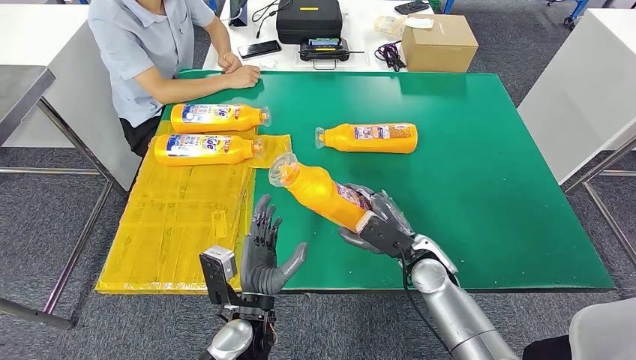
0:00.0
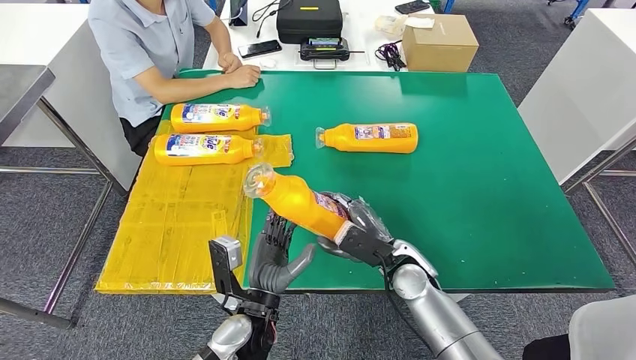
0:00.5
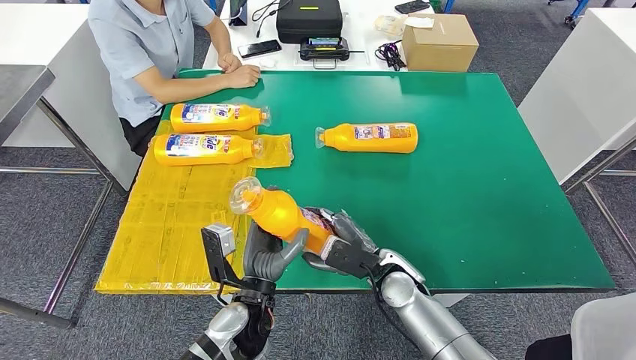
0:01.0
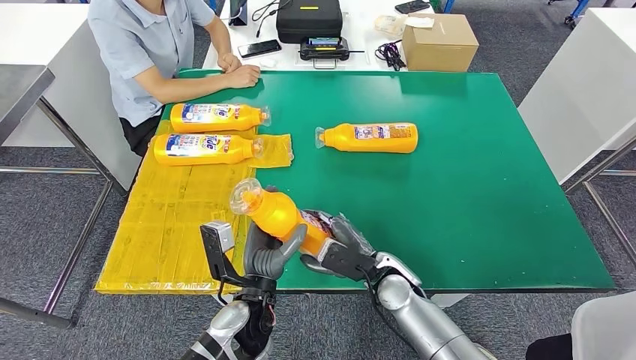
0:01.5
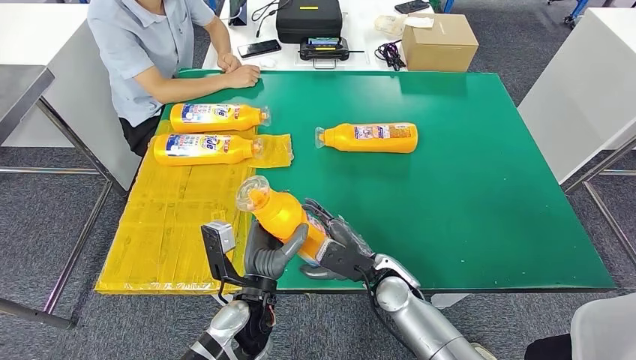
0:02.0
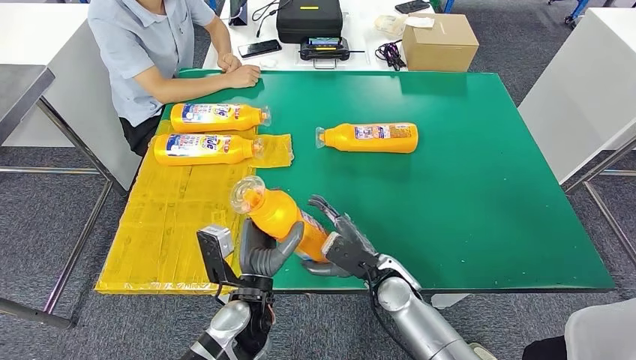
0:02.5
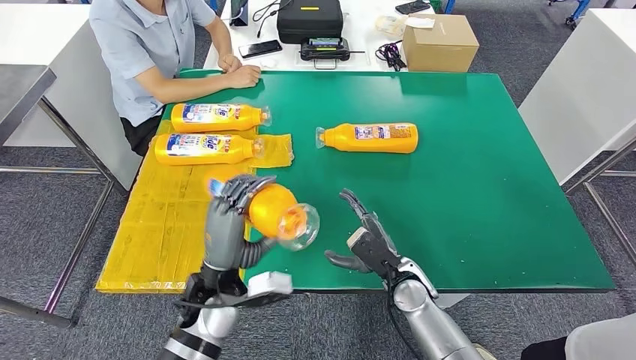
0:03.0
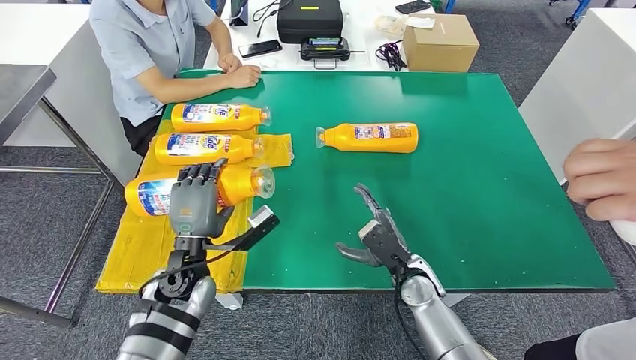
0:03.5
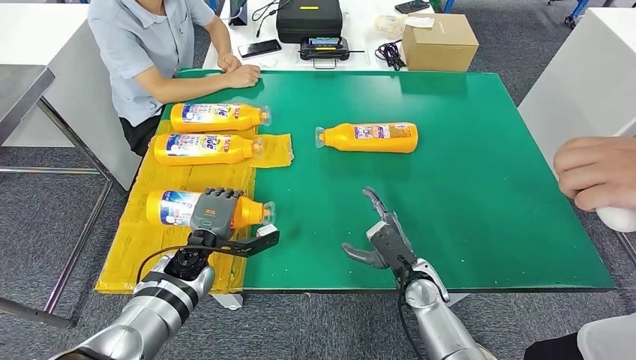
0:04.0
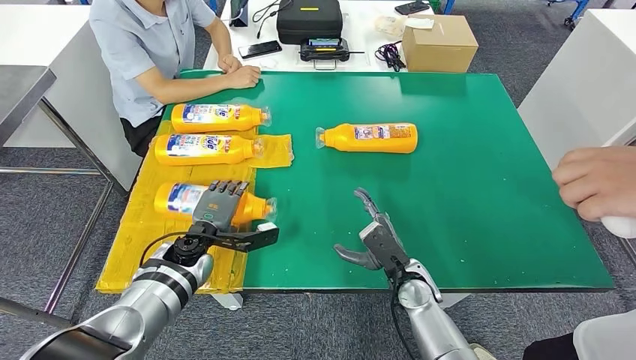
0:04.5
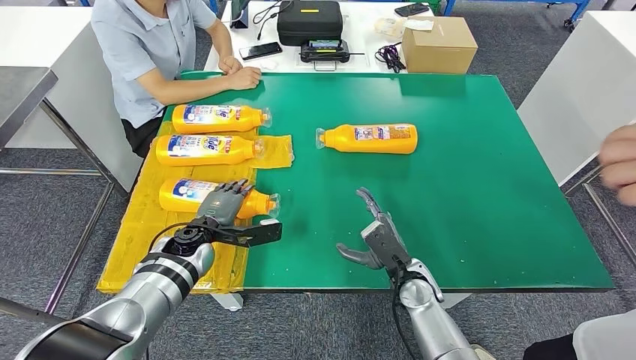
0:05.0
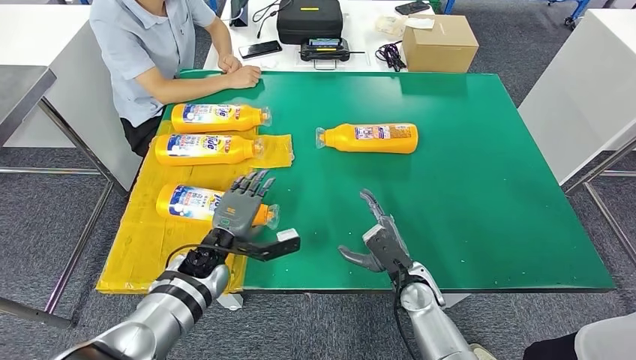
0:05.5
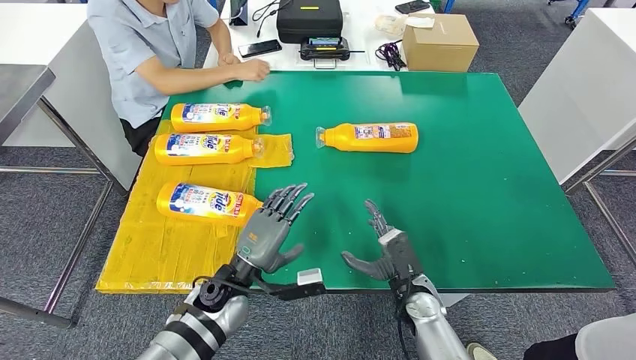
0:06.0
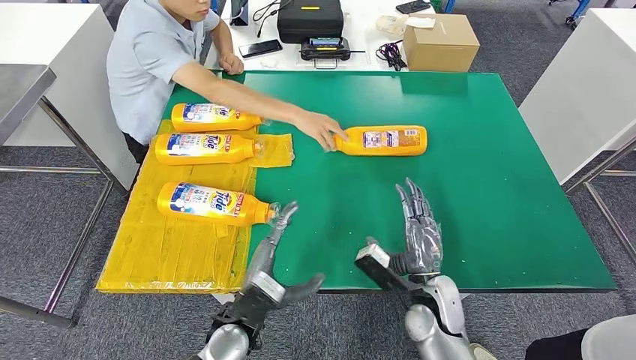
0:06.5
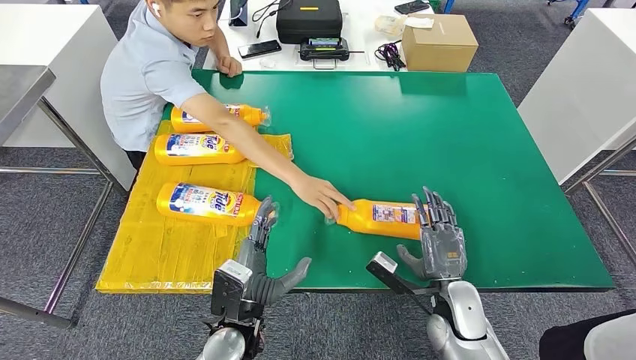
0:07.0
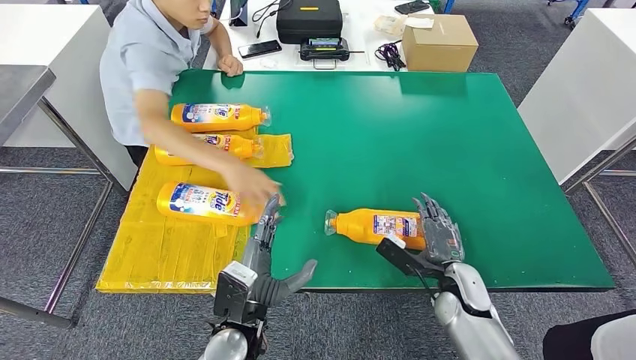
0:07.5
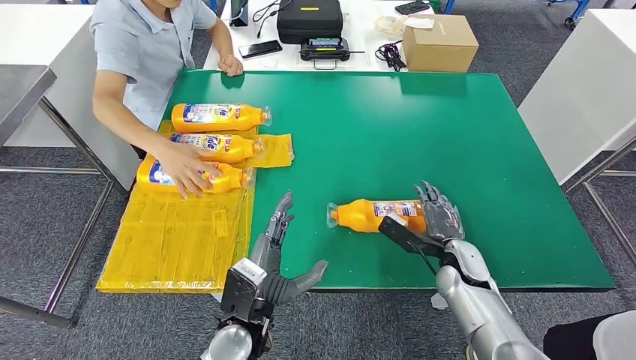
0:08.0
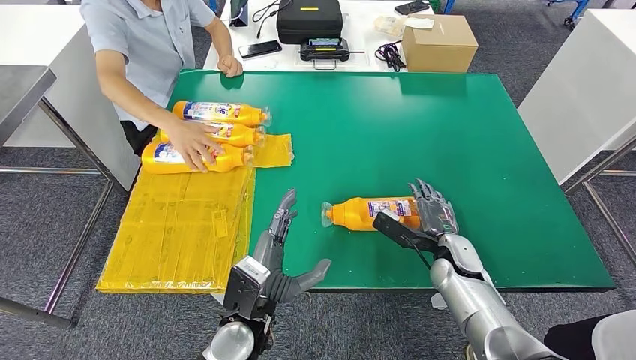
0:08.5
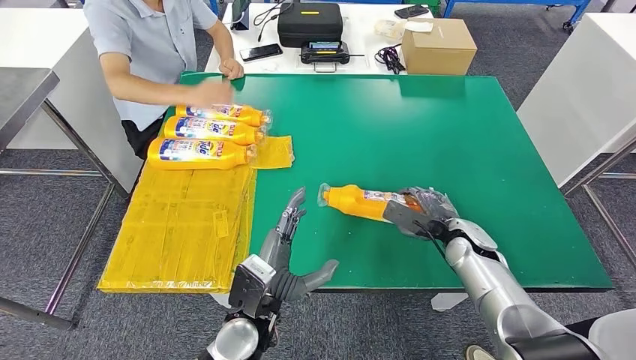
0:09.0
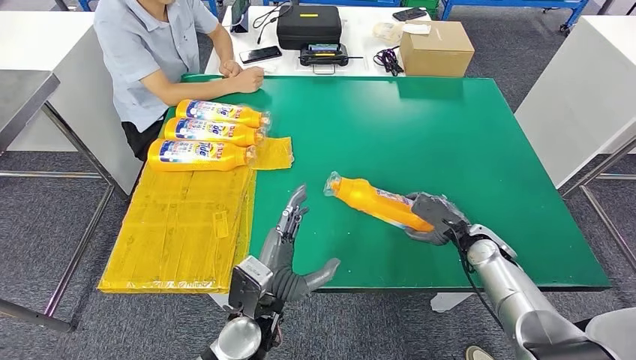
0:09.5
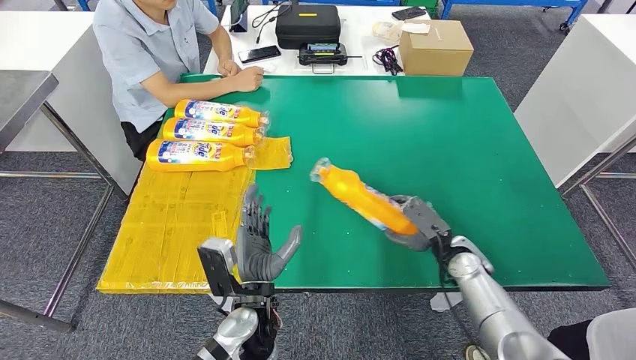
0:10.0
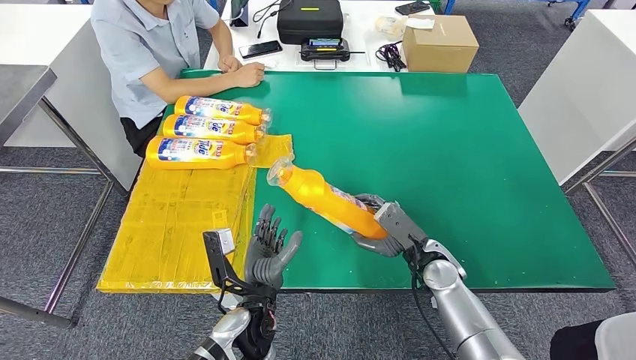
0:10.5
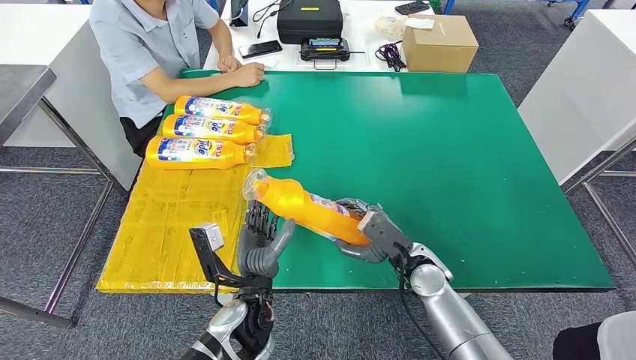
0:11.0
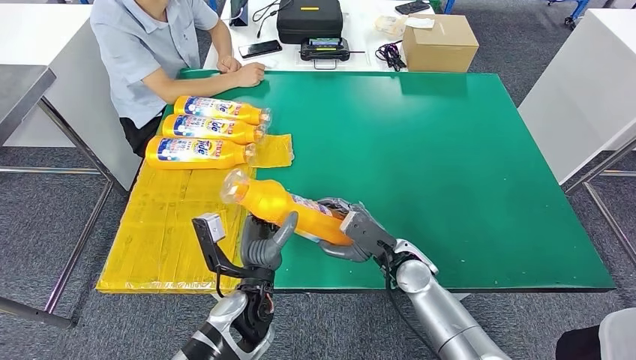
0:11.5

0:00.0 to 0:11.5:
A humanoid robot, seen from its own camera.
Step, 0:00.0 to 0:05.0: Flip the fast-moving consumer goods bottle to the front side.
0:00.0 to 0:02.0: The right hand moves to the left, some 5 cm.
0:02.0 to 0:04.0: The left hand goes about 15 cm to the left and forward, while the right hand travels to the right by roughly 5 cm.
0:04.0 to 0:06.0: The left hand goes roughly 10 cm to the right and backward.
0:06.0 to 0:07.5: The right hand heads to the right, covering roughly 10 cm. Meanwhile the left hand moves backward, some 10 cm.

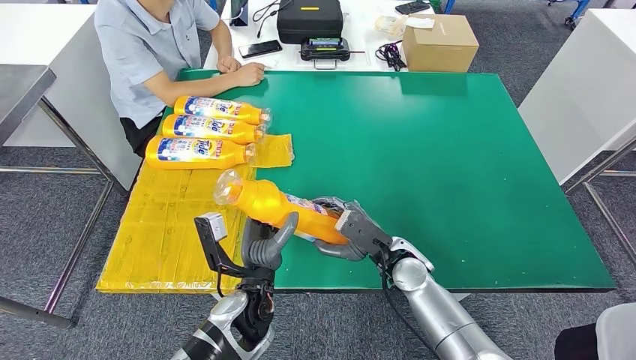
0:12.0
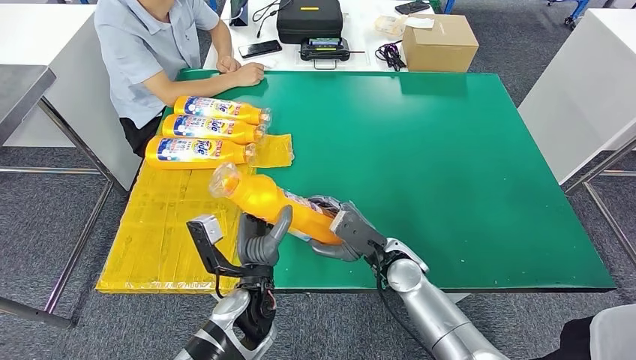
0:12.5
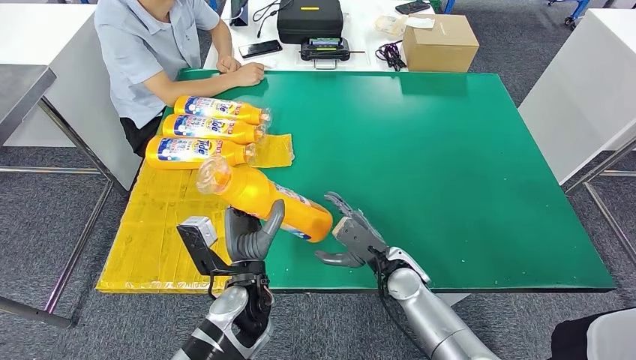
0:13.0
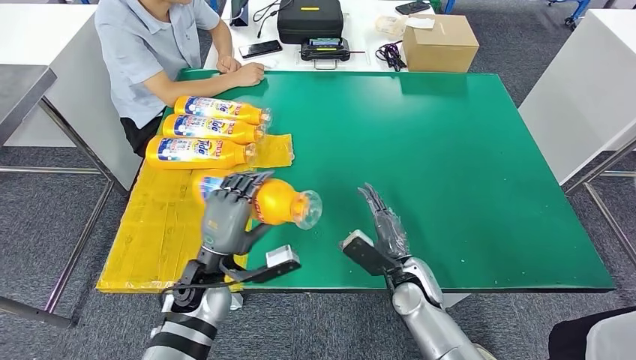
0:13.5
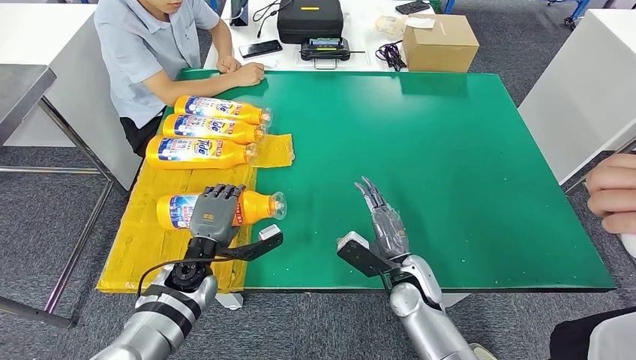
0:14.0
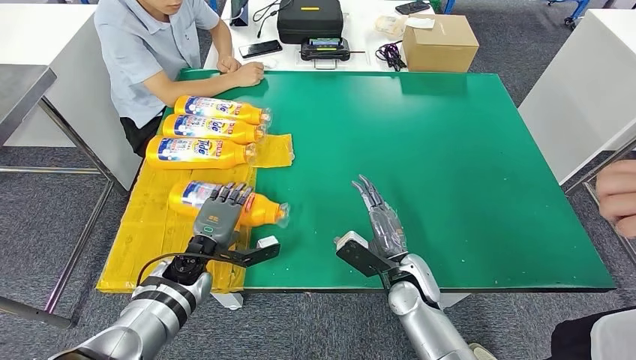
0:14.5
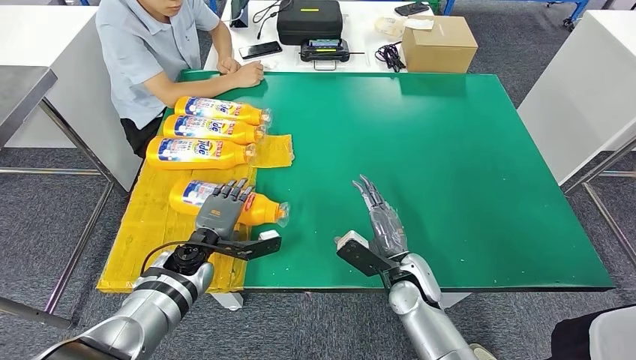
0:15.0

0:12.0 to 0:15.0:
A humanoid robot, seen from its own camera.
Step, 0:12.5 to 0:15.0: Flip the fast-moving consumer goods bottle to the front side.
0:12.0 to 0:13.5: The left hand heads to the left, covering some 10 cm; the right hand moves some 5 cm.
0:13.5 to 0:15.0: The left hand travels forward and downward by roughly 10 cm.
